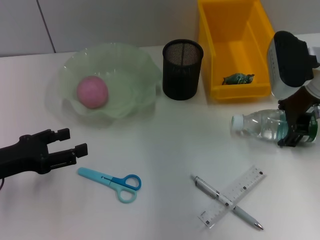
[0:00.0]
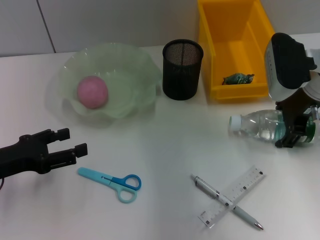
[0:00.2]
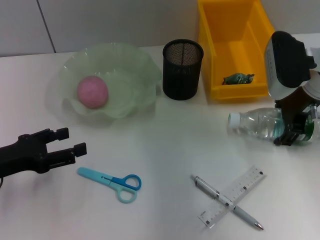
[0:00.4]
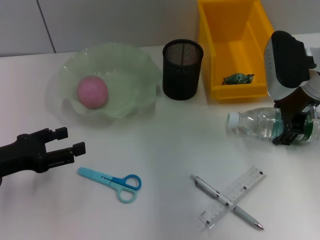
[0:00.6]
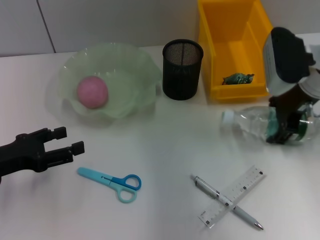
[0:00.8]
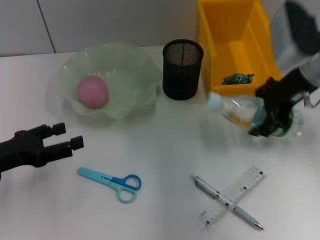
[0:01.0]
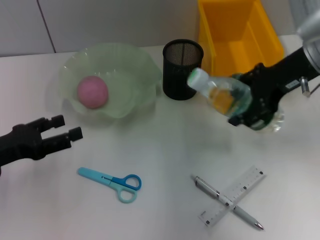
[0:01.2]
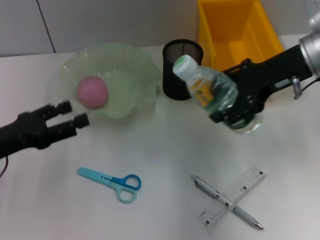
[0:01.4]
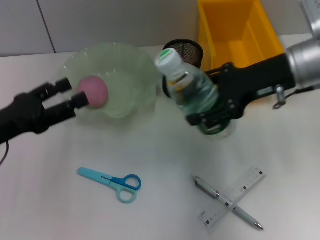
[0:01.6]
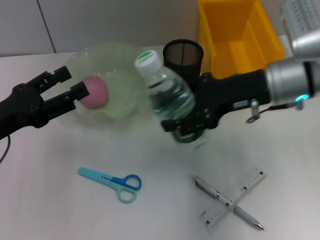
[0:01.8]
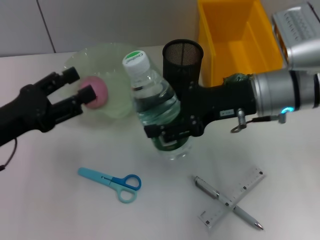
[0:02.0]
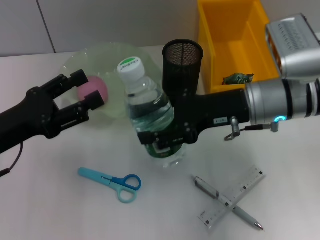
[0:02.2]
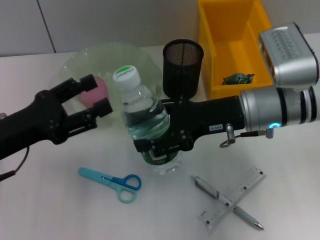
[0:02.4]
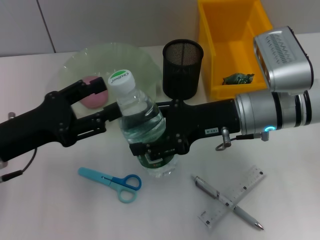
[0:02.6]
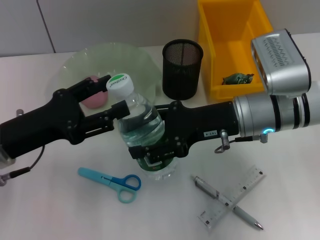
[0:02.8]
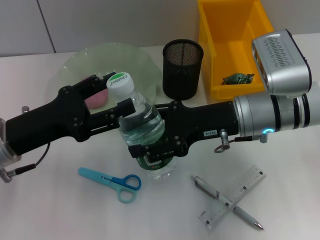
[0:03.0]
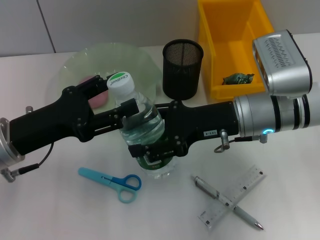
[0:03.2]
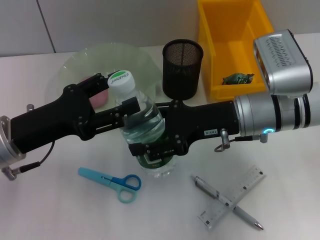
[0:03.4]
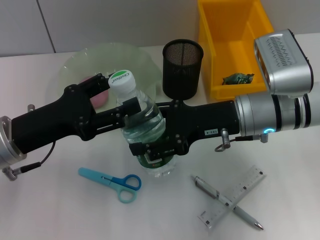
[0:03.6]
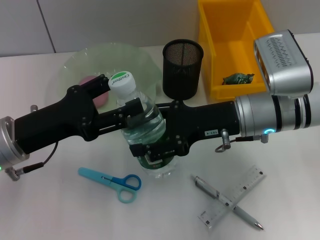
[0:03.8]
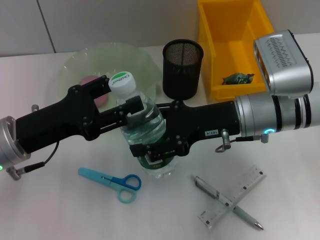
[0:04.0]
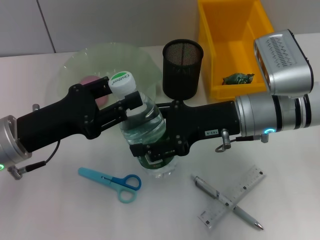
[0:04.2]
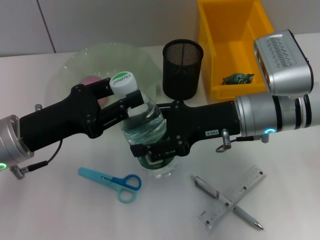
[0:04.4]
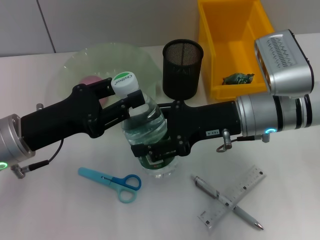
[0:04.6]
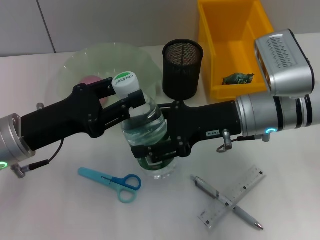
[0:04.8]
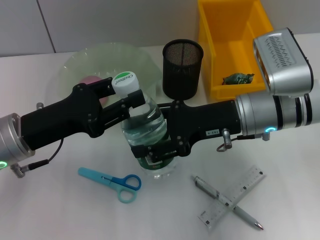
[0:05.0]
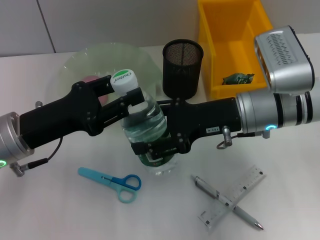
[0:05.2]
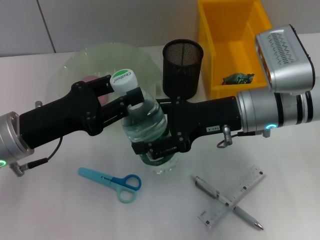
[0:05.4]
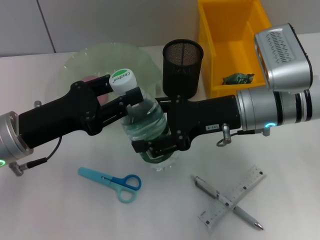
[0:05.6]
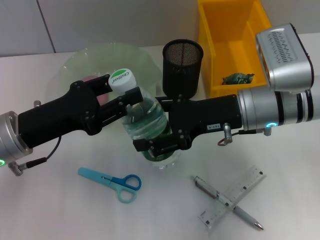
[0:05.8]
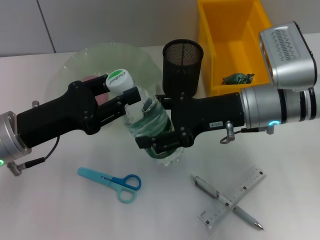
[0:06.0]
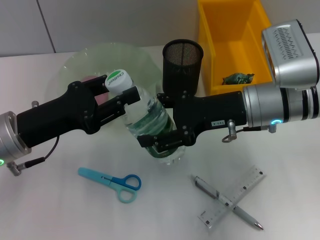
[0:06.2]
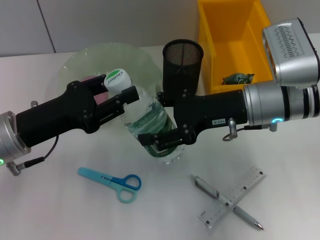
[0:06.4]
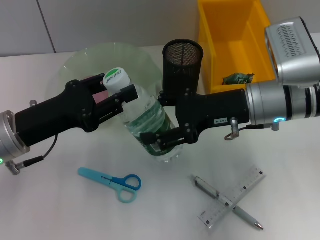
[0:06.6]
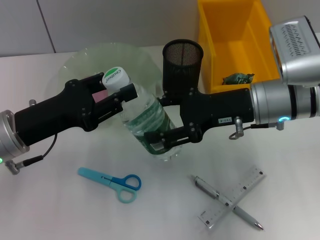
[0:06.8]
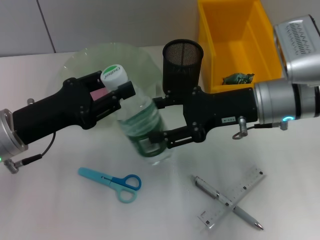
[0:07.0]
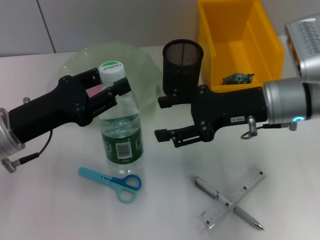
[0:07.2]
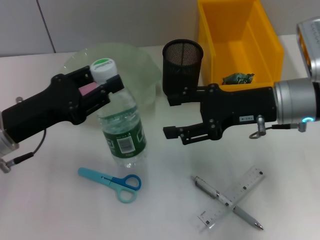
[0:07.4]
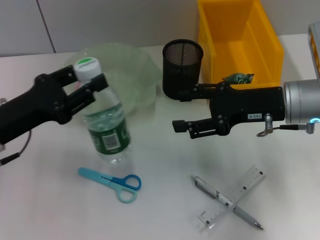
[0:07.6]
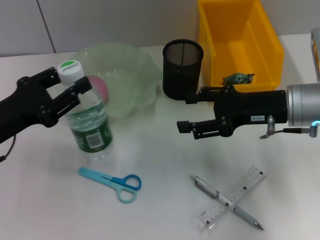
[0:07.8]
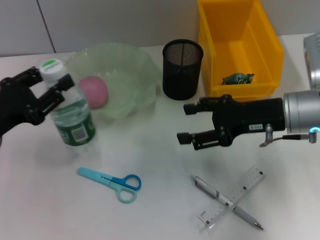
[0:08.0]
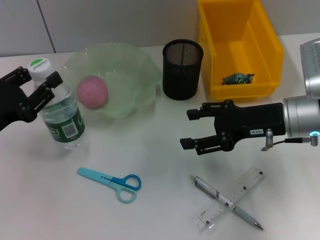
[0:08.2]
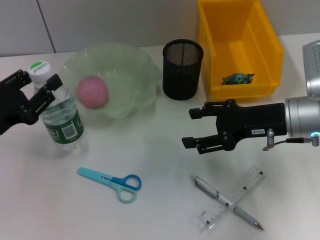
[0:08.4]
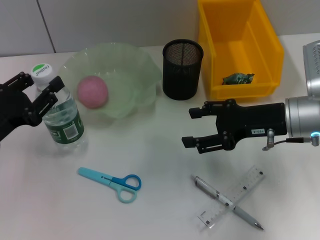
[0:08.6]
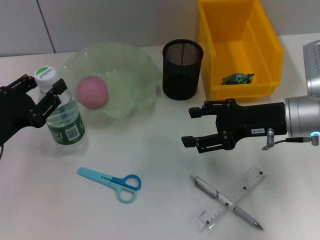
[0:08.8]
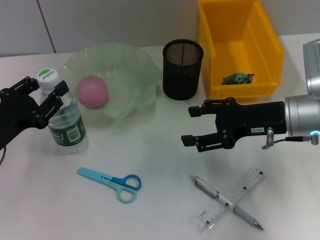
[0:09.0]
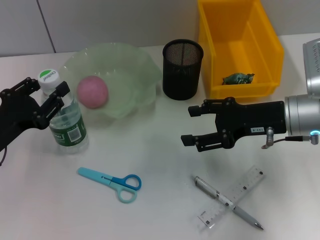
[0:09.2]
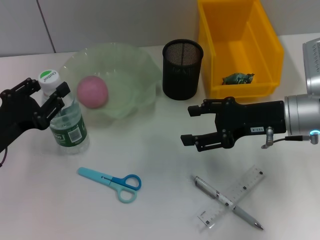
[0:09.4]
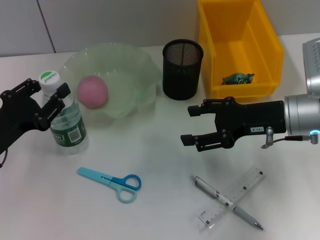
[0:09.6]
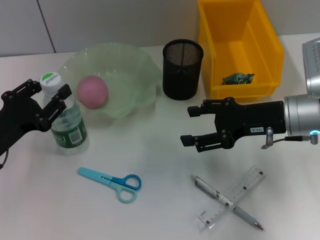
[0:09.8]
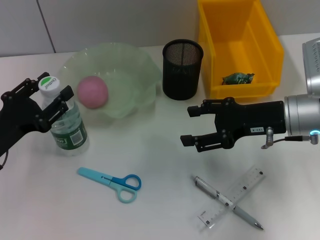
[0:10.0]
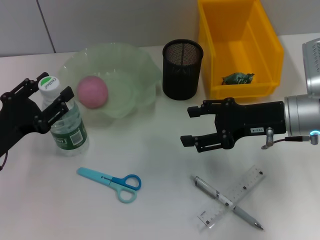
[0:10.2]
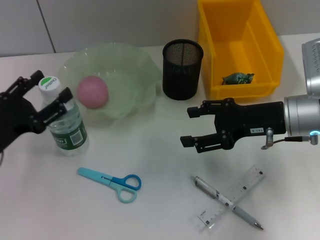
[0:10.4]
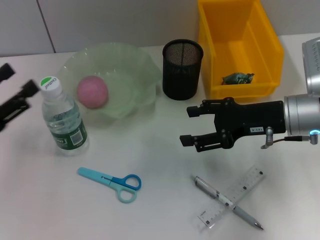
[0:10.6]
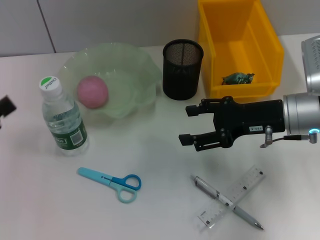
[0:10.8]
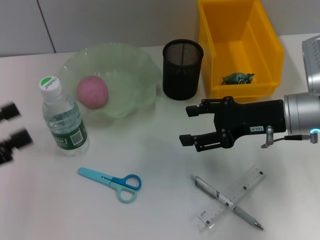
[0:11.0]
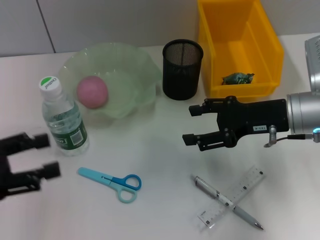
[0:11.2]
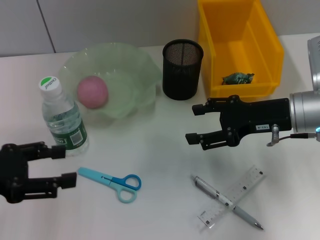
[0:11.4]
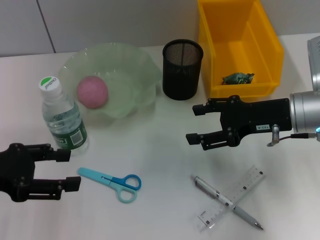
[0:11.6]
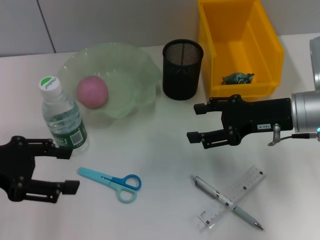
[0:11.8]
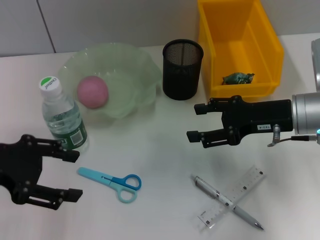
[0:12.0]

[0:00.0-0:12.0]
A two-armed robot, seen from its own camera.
Step, 0:00.4 to 0:05.4: Pass the water bottle from the right hand to the left hand.
Step, 0:05.6 to 0:09.8: Place the water bottle on the table with the left hand.
0:00.0 to 0:01.6: The right gripper moves about 5 cm.
0:01.6 to 0:03.0: The right gripper heads downward and to the left, covering about 10 cm.
0:03.0 to 0:04.4: The left gripper closes up.
0:04.4 to 0:06.0: Both grippers stay put.
0:06.0 to 0:07.6: The right gripper is displaced to the right by some 5 cm.
0:07.6 to 0:09.0: The left gripper ends up approximately 5 cm from where it was.
0:09.0 to 0:10.4: Neither gripper changes place.
0:10.4 to 0:12.0: The left gripper heads upward, covering about 10 cm.

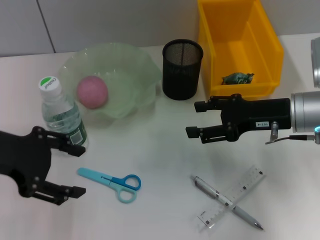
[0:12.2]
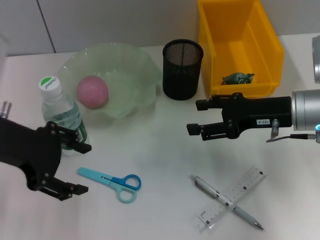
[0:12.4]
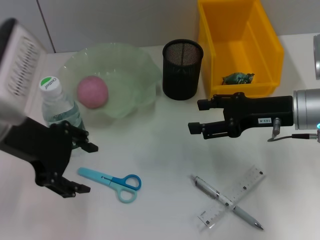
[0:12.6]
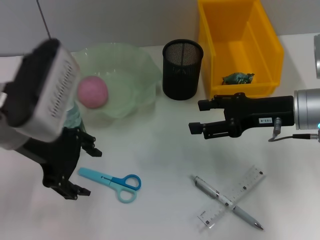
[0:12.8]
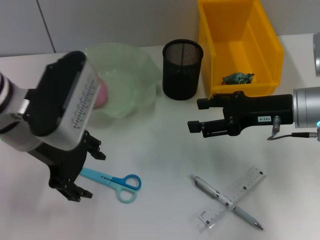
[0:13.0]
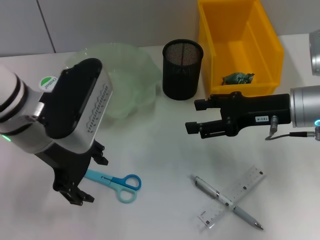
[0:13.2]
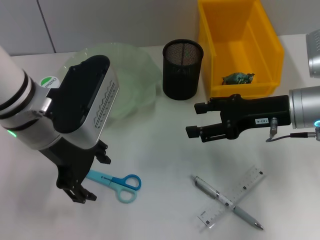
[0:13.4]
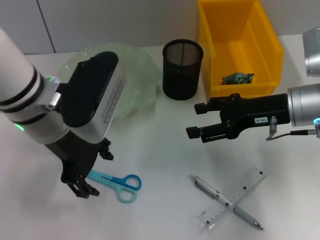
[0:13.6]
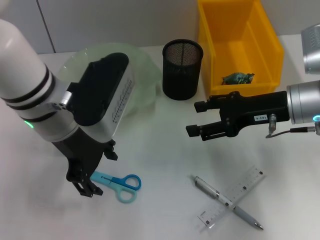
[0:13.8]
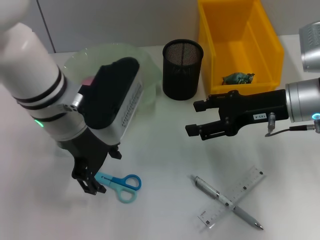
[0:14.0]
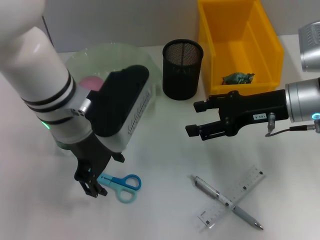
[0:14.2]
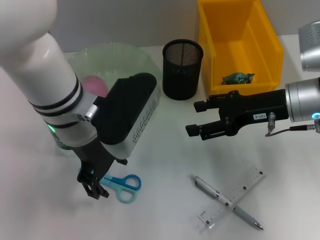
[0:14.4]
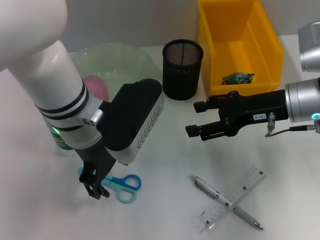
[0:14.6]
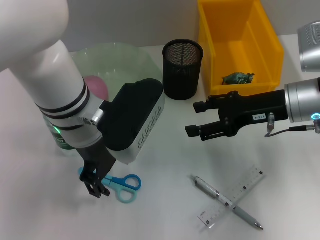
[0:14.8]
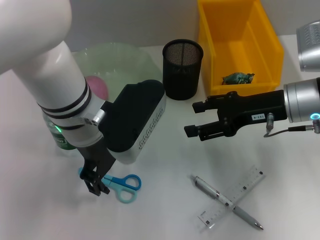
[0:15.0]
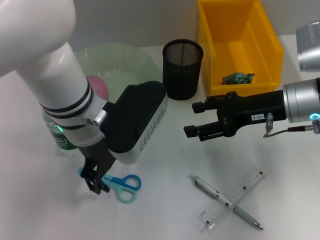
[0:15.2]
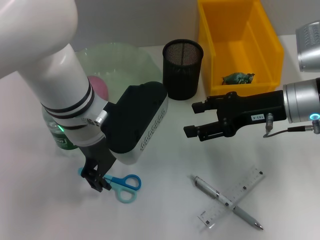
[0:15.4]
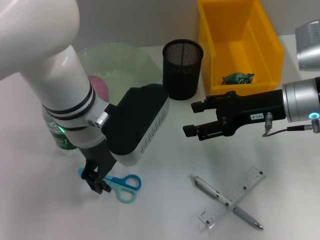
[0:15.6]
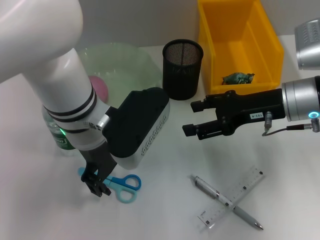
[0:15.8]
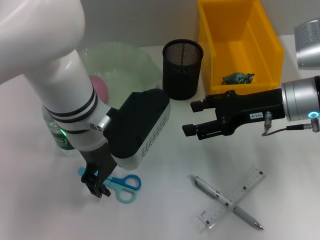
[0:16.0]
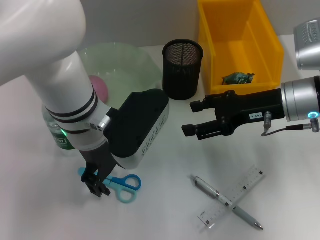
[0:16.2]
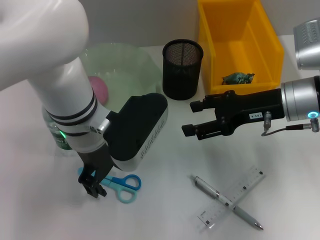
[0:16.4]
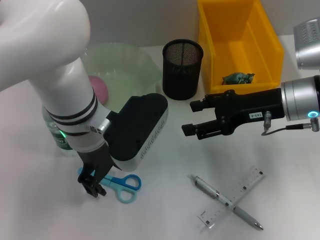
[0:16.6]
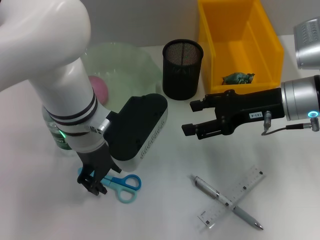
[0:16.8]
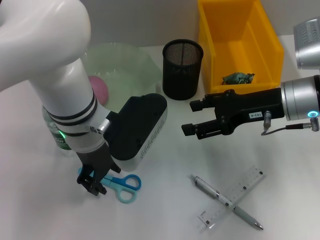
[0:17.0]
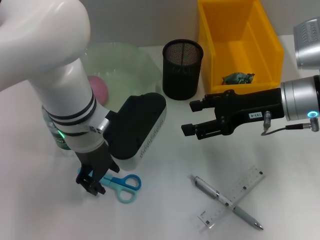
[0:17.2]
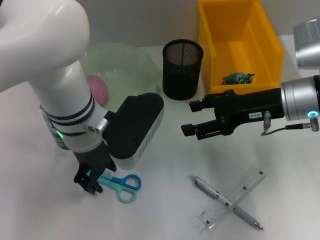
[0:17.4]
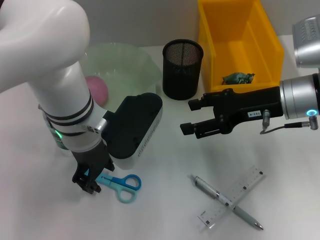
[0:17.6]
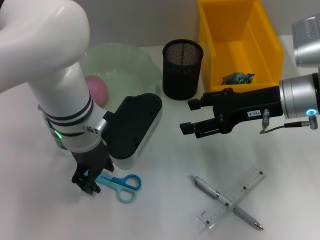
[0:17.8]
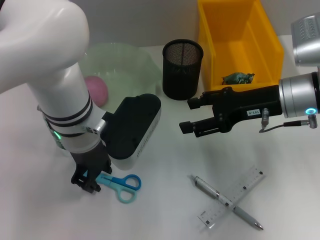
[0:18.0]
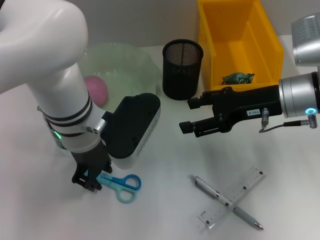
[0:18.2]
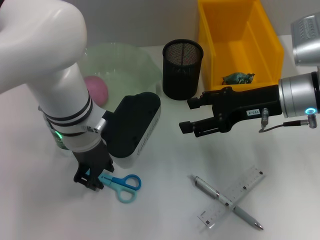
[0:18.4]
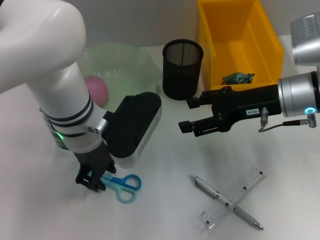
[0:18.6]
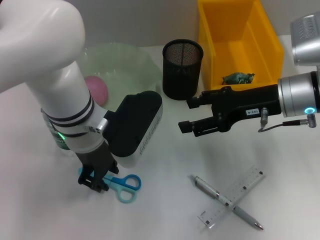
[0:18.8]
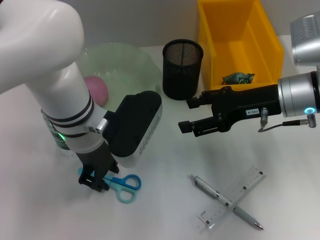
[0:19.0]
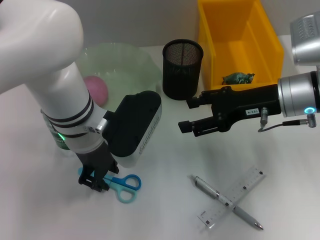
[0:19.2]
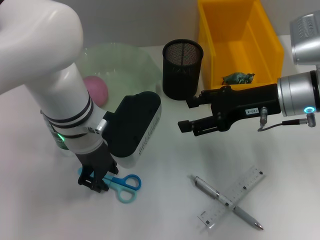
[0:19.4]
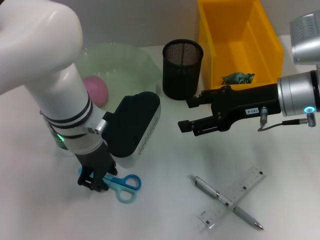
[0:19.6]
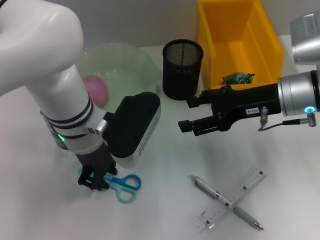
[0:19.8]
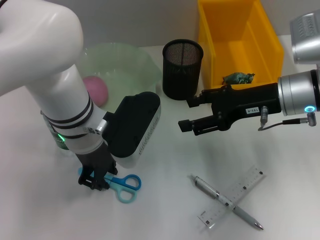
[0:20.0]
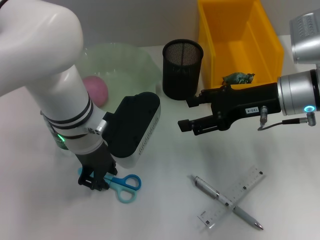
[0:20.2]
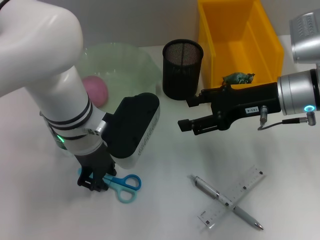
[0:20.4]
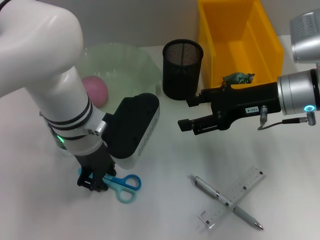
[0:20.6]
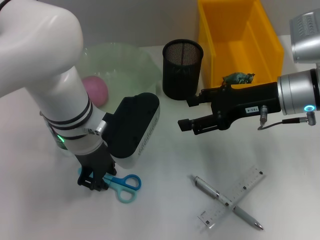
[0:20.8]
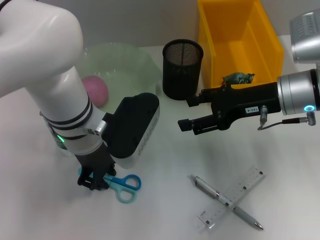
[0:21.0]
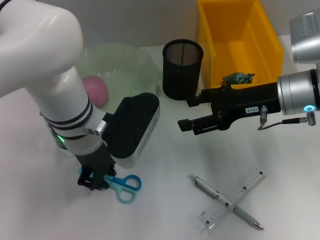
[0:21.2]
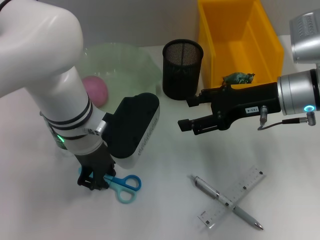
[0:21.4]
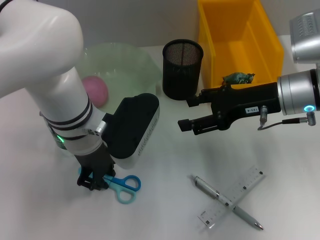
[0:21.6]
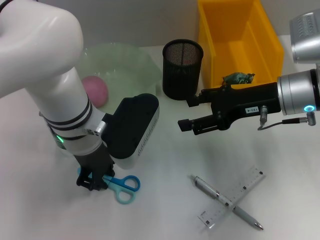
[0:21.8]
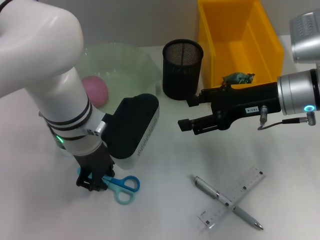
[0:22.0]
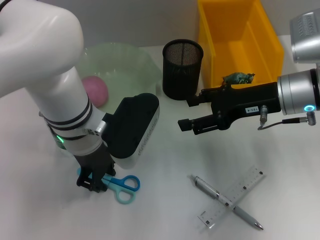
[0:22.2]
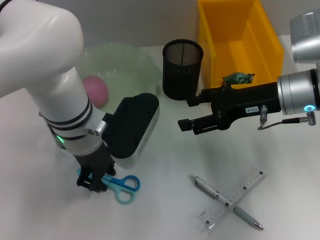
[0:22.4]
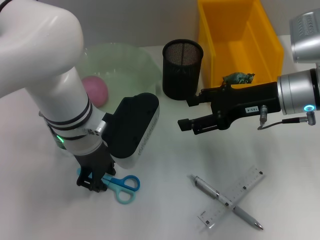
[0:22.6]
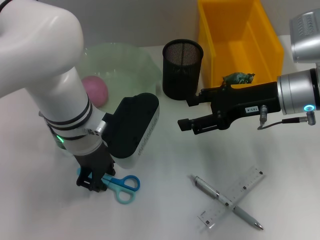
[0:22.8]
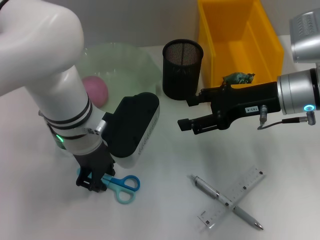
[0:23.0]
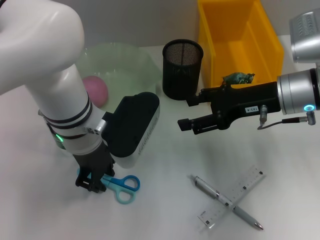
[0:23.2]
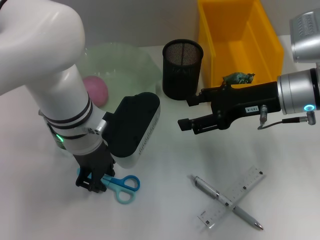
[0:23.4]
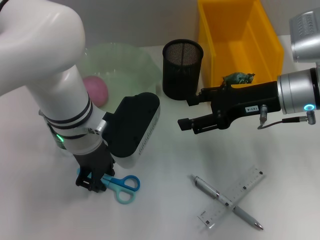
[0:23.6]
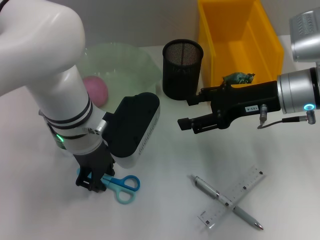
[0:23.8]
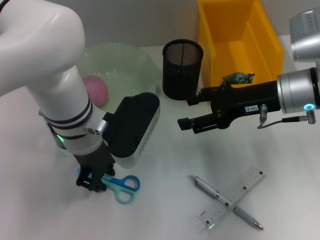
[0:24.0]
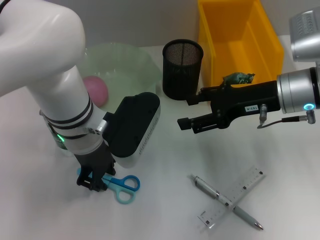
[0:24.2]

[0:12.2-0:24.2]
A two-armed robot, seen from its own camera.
0:12.2 to 0:13.8: The left gripper is displaced to the right by about 15 cm.
0:15.2 to 0:16.6: The grippers move only a little.
0:16.6 to 0:18.2: Both grippers stay about where they are.
0:18.2 to 0:24.2: The two grippers keep their place.
